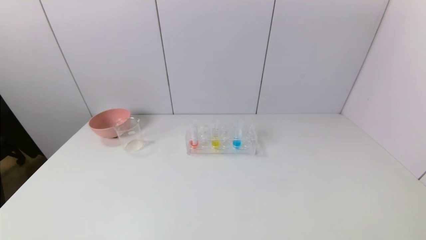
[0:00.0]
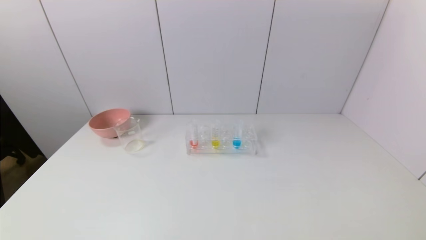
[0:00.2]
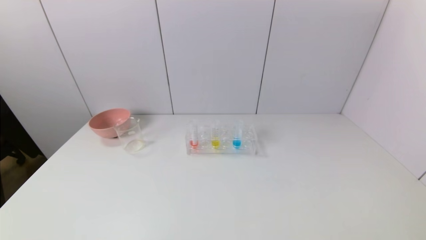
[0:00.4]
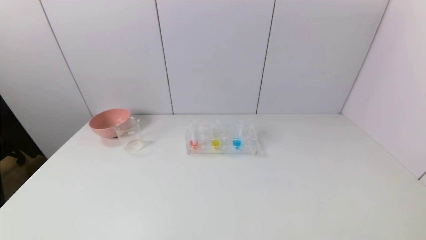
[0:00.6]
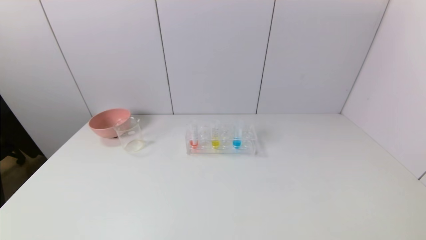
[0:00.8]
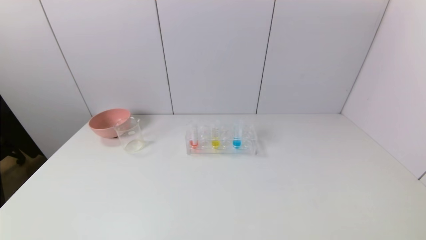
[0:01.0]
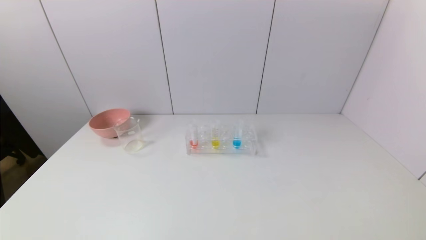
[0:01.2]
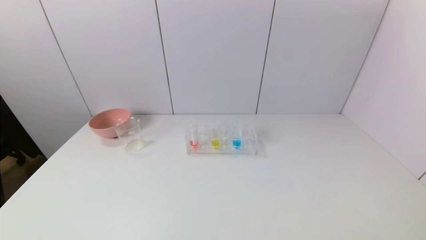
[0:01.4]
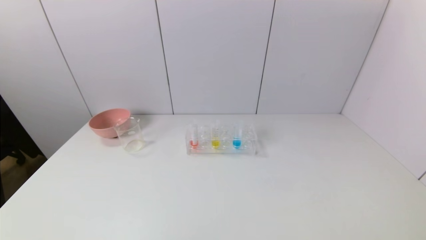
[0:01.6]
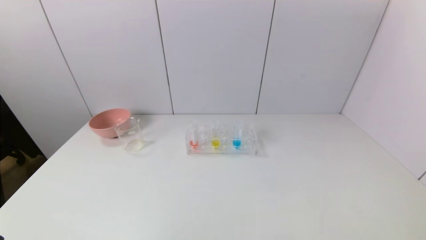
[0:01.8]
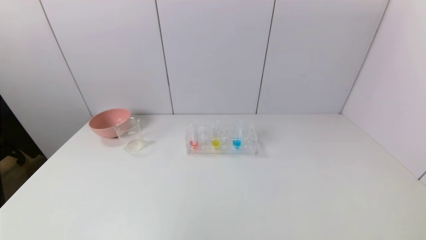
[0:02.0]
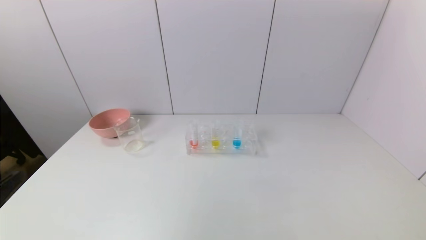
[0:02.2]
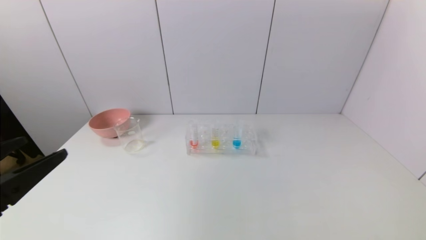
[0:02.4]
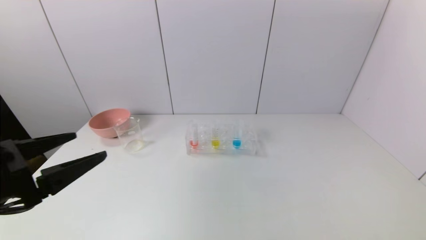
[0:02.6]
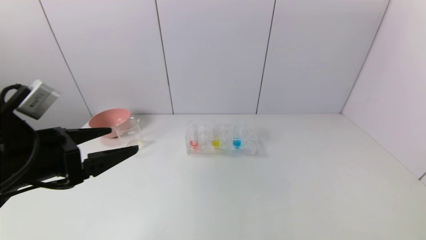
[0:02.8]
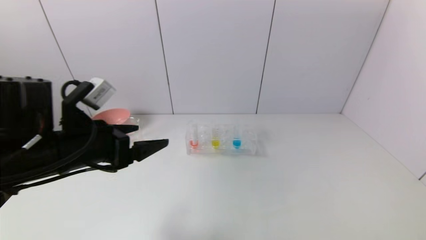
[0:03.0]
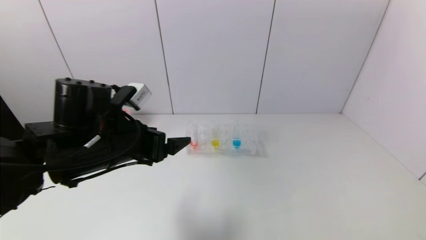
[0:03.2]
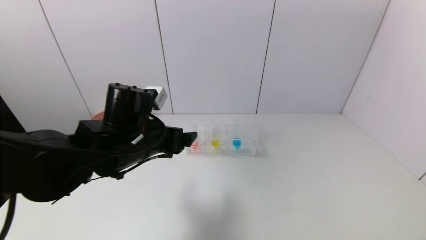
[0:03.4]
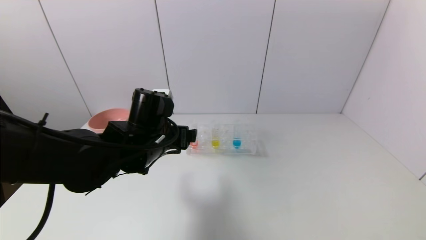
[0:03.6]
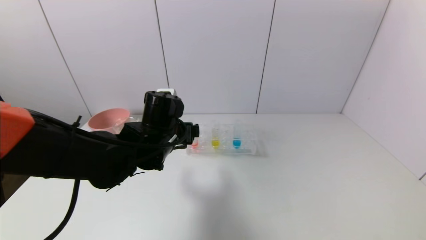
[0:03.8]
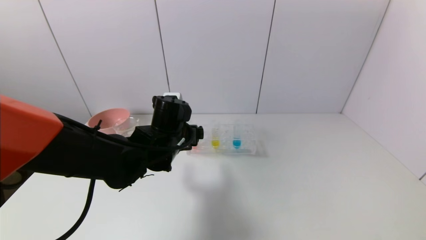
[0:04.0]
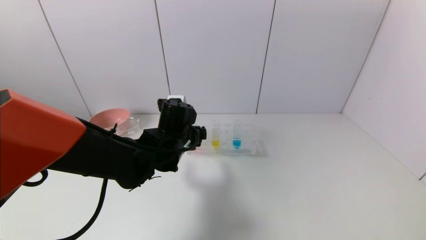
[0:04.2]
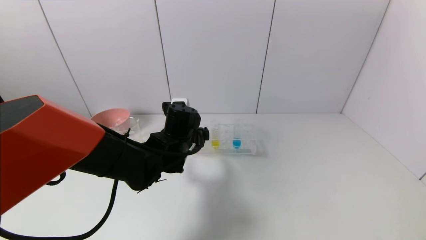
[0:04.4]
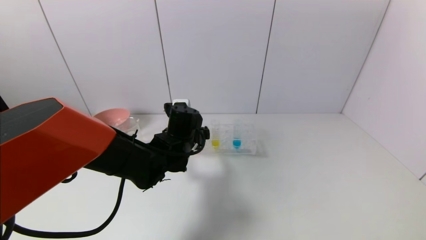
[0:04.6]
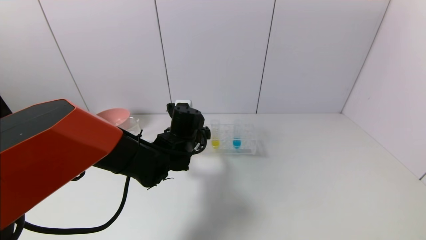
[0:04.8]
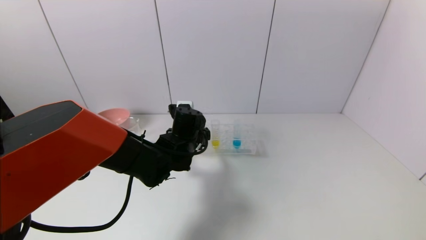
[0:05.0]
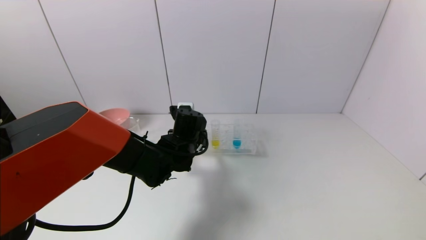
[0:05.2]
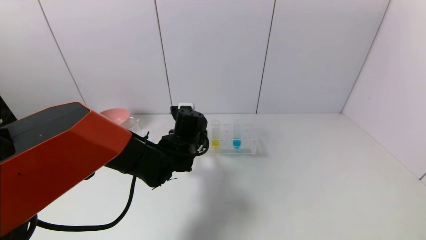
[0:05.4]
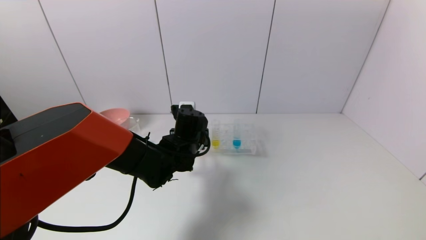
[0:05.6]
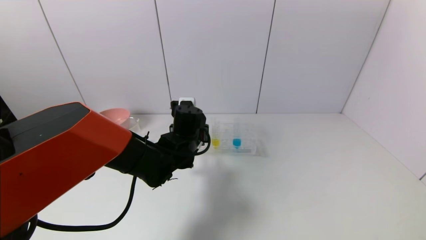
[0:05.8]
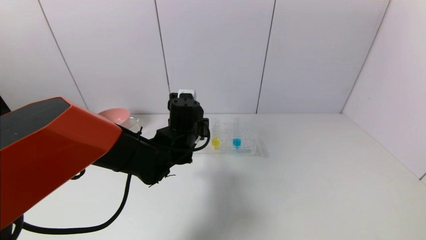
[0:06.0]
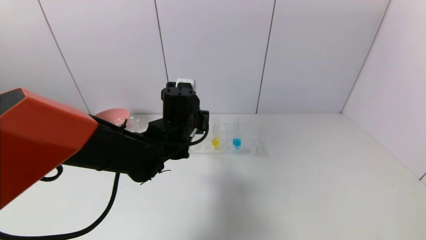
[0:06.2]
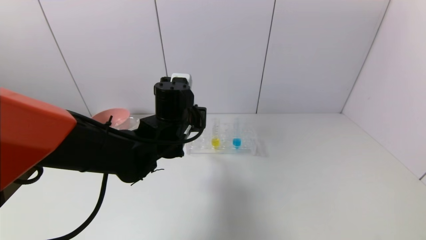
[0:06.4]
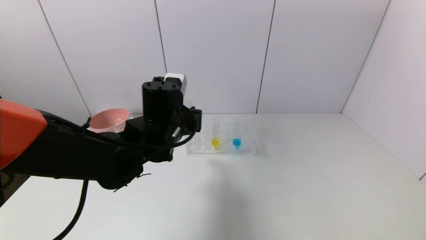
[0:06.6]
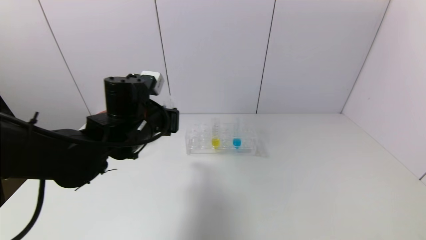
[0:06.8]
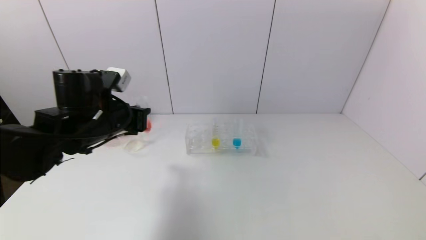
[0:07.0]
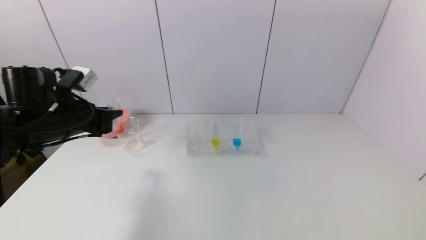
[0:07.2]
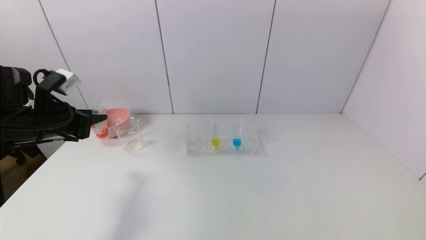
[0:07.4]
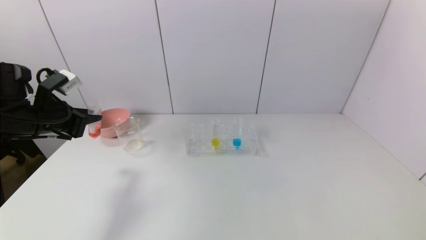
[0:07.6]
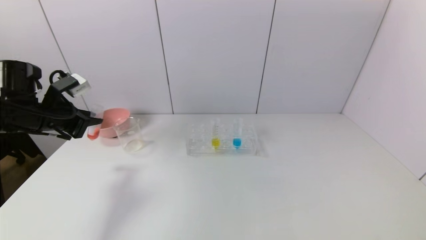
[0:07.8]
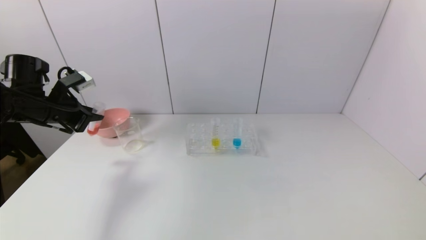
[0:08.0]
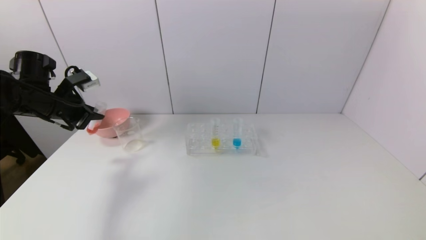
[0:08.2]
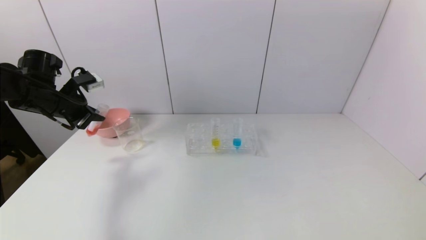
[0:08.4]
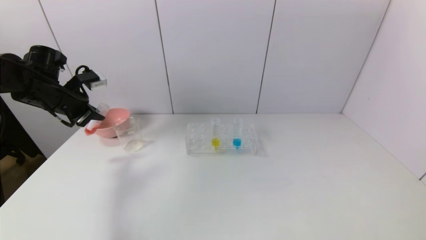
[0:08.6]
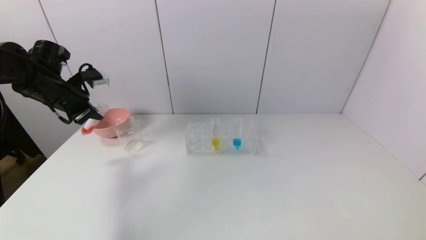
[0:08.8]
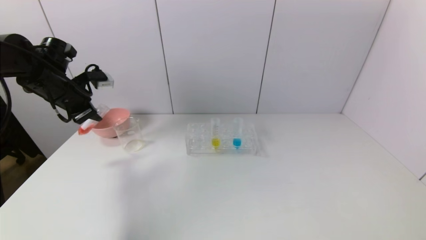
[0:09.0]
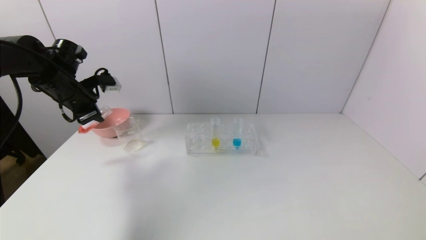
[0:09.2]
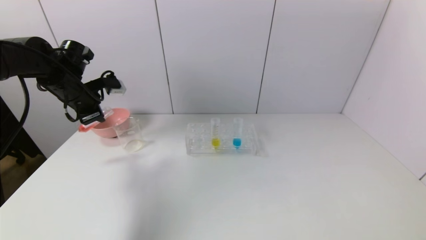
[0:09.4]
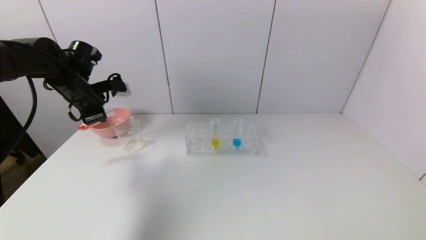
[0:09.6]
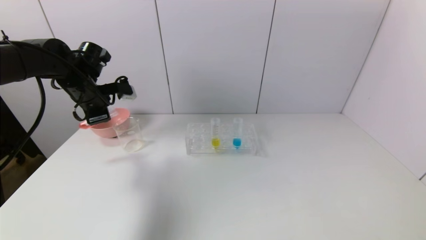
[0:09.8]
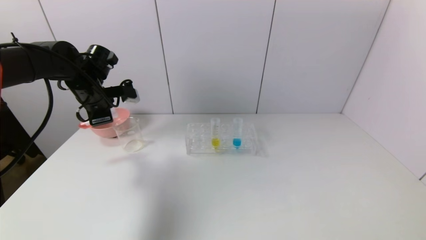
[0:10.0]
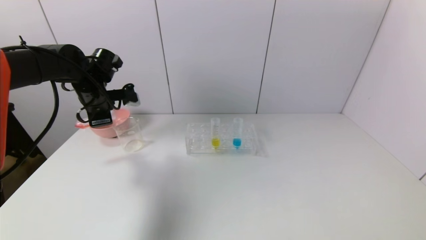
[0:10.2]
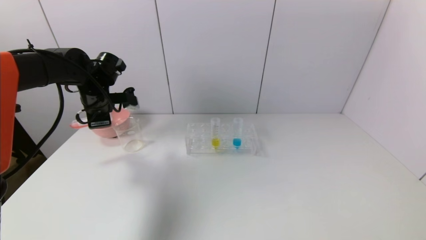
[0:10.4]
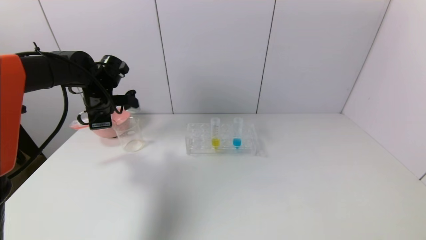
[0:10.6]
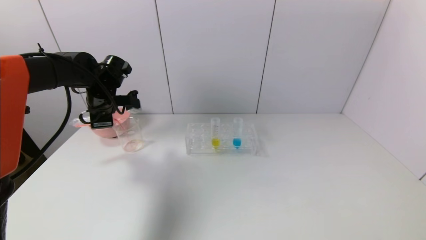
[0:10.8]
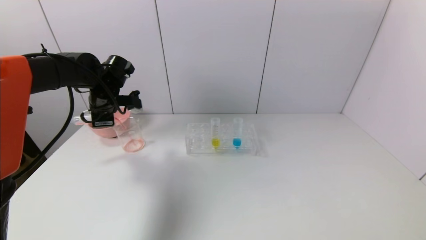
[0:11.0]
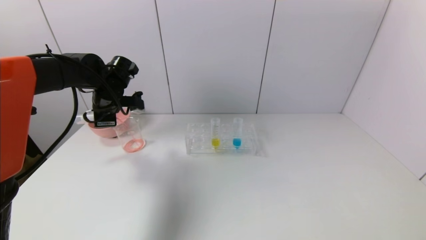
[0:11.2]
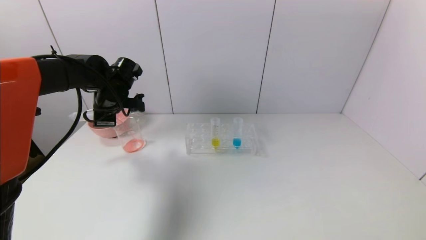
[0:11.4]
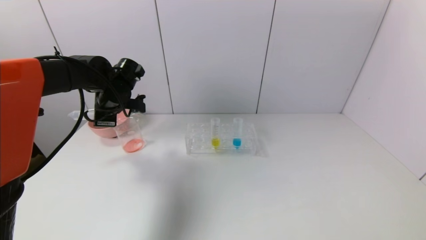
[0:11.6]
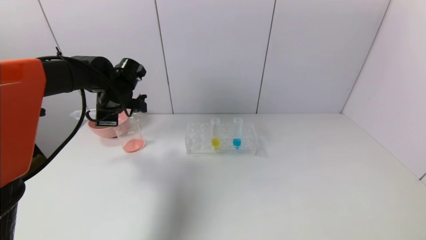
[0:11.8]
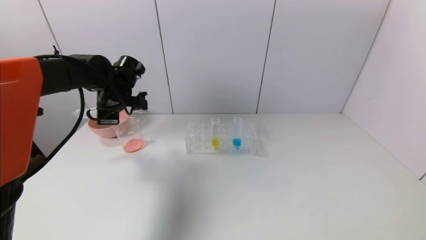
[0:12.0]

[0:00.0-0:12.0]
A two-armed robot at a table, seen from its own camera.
Task of the whole recording: pick up the test tube with yellow pigment and the test tube with red pigment by grippers and pour them into the beaker.
Step, 0:00.0 to 0:05.4: Grasp the red reagent with the left gripper.
Step, 0:05.6 to 0:11.8: Pour the red reagent into the graduated cylinder with the left gripper.
0:01.6 to 0:03.0: The left gripper shifts about 25 cm forward and upward.
0:03.0 to 0:04.4: The left gripper heads to the right, forward and downward, covering approximately 20 cm.
0:04.4 to 0:06.0: The left gripper closes up.
0:06.0 to 0:07.6: The left gripper heads to the left, covering roughly 30 cm.
0:07.6 to 0:09.0: The left gripper is displaced forward by roughly 10 cm.
0:09.0 to 0:10.4: The left gripper shifts about 5 cm to the right.
0:10.4 to 0:12.0: There are only small adjustments of the grippers.

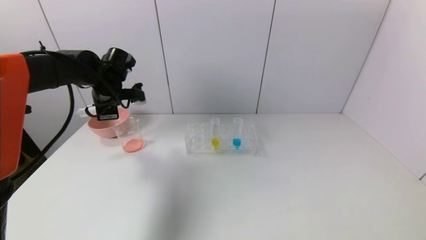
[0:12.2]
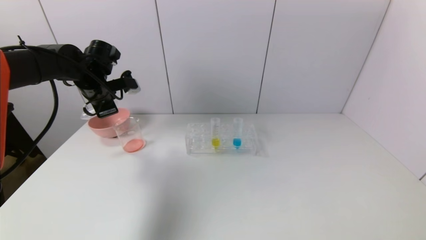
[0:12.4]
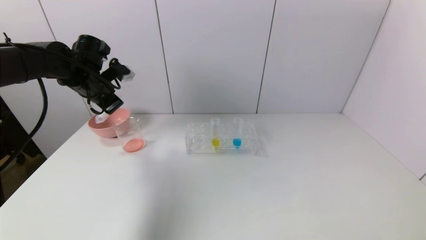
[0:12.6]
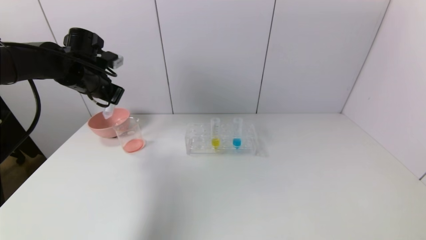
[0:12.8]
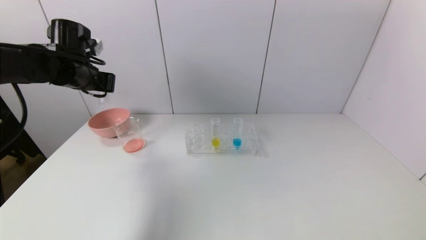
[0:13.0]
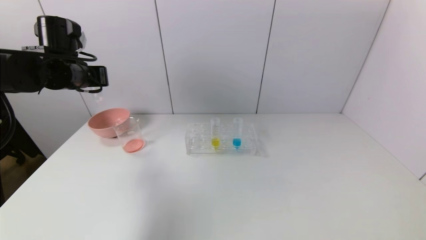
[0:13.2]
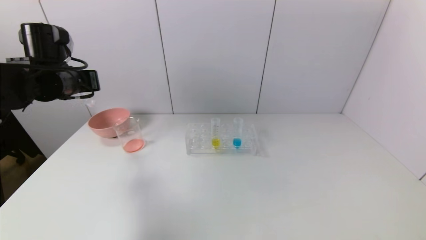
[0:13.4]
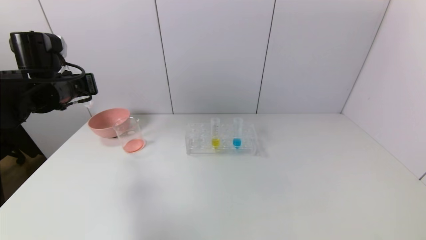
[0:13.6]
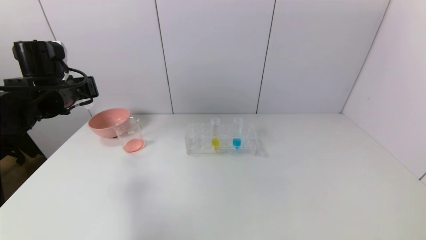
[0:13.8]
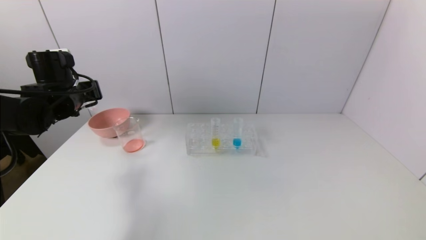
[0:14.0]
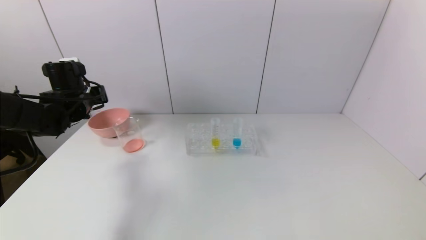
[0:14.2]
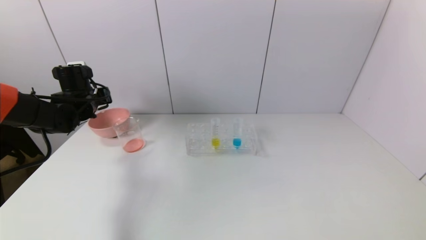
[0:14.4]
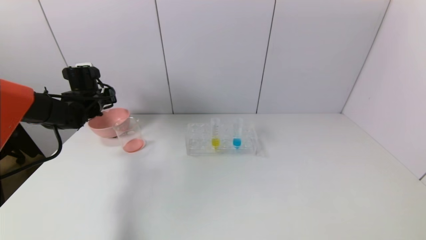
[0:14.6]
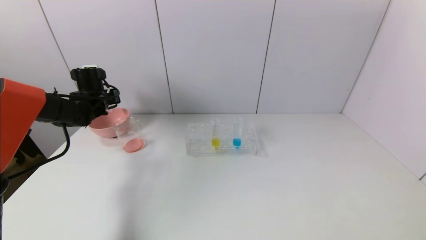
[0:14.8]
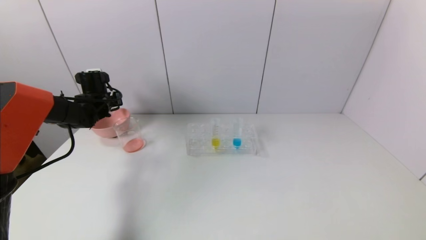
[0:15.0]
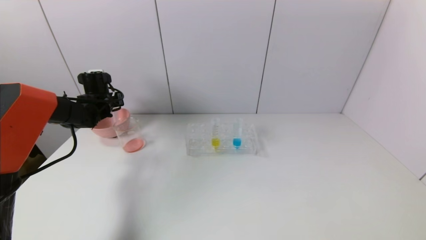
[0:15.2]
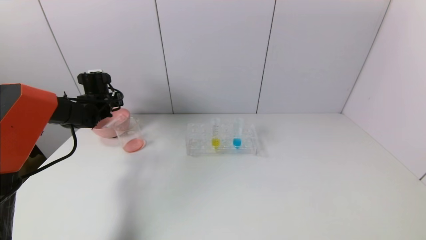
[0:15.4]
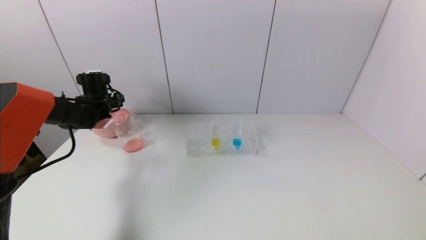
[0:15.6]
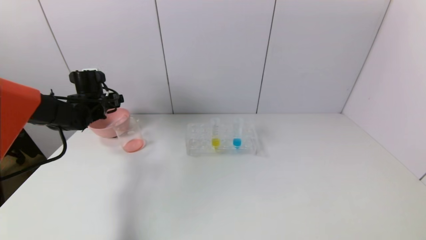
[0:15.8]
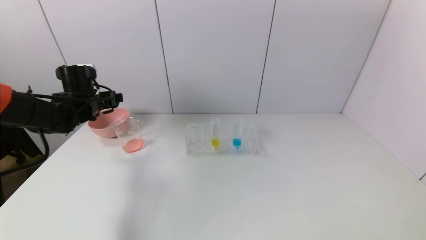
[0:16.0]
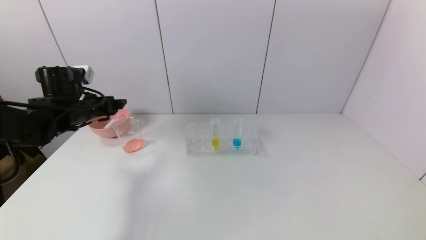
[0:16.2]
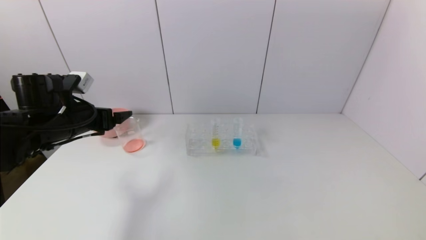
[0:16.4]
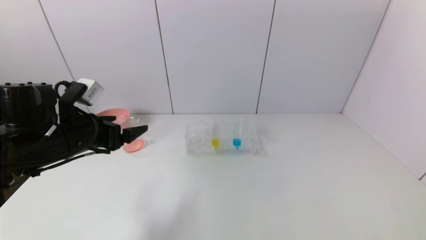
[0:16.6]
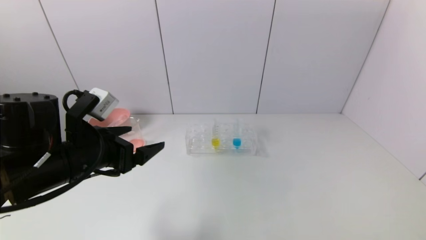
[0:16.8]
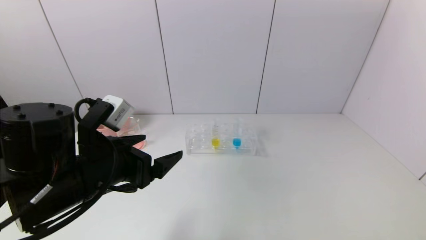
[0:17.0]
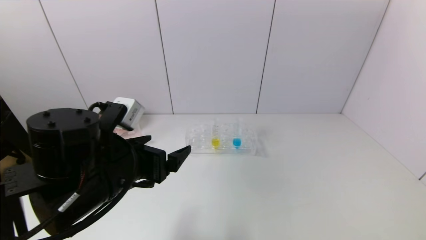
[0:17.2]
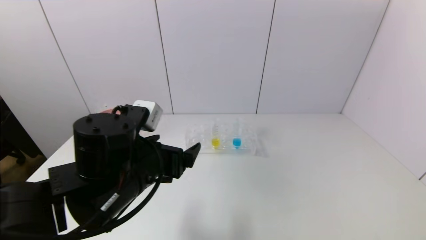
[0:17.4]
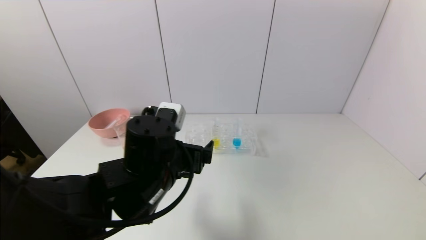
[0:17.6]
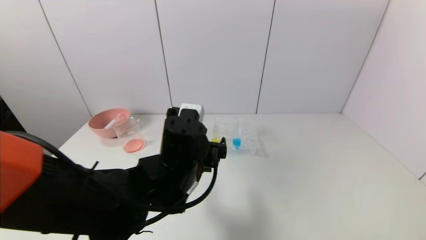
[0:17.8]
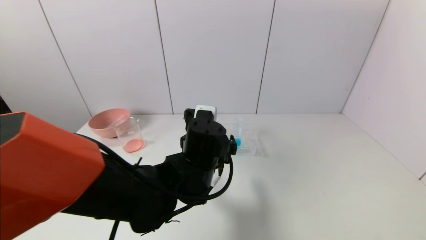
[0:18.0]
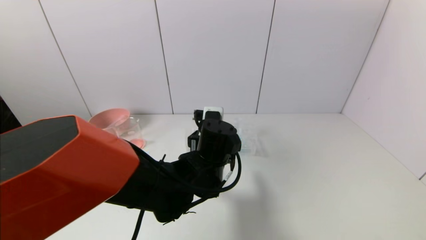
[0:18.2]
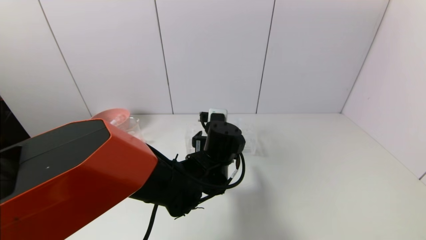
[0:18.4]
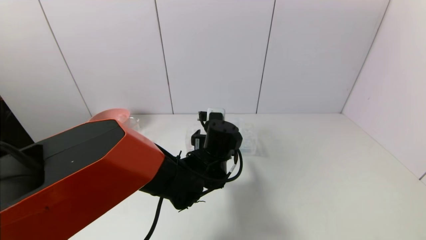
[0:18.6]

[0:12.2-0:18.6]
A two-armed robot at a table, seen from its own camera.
Task of the whole recording: pick up the test tube with yellow pigment and the test tube with red pigment by grippers and pour them into the beaker.
Step, 0:12.2 to 0:15.4: Place the test tube into the pink bowl with the left gripper.
0:12.2 to 0:13.8: The left gripper shifts some 10 cm backward.
0:13.8 to 0:15.4: The left gripper heads forward and downward, covering some 15 cm, and opens.
0:15.4 to 0:17.0: The left gripper heads backward and to the right, covering roughly 35 cm, and opens up.
0:17.0 to 0:18.6: The left gripper goes some 25 cm to the right, forward and downward.
